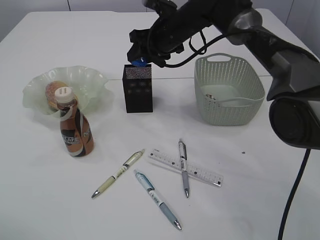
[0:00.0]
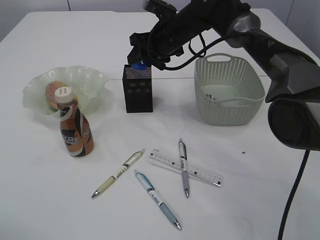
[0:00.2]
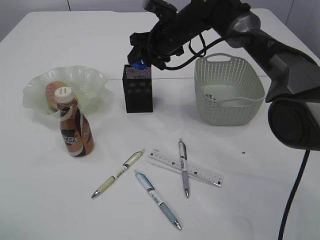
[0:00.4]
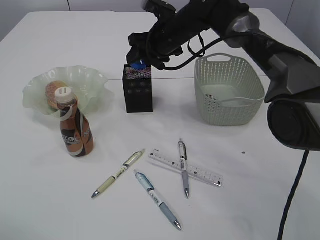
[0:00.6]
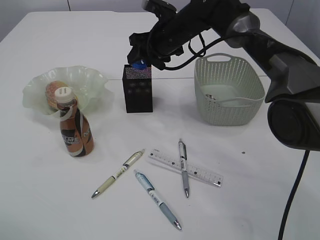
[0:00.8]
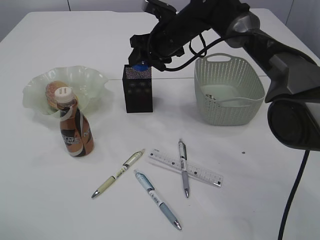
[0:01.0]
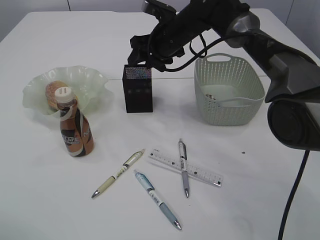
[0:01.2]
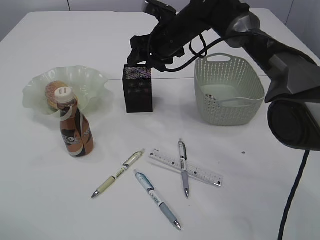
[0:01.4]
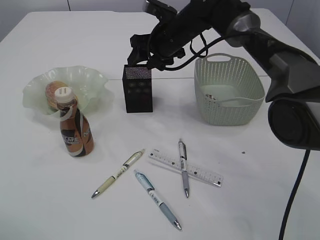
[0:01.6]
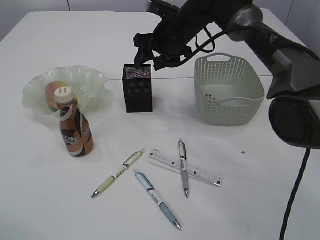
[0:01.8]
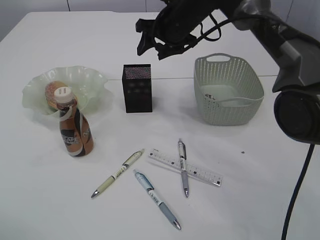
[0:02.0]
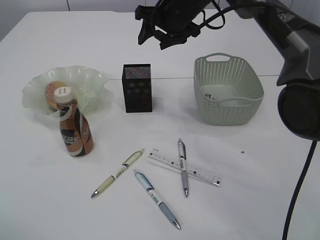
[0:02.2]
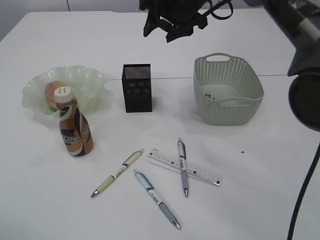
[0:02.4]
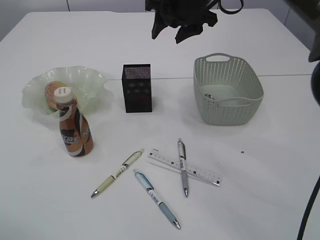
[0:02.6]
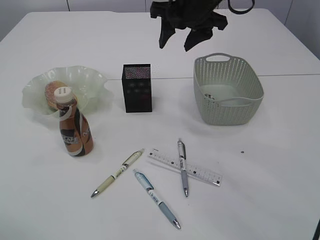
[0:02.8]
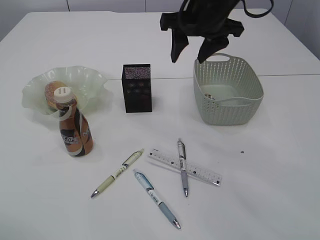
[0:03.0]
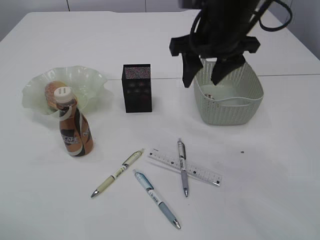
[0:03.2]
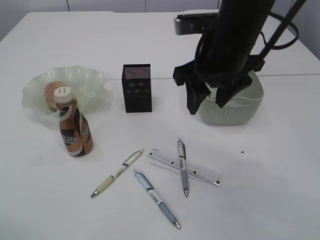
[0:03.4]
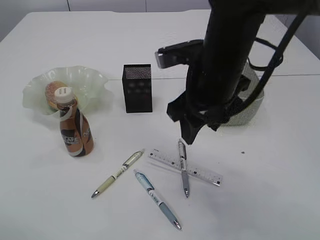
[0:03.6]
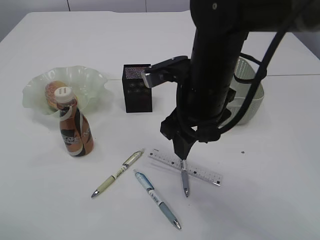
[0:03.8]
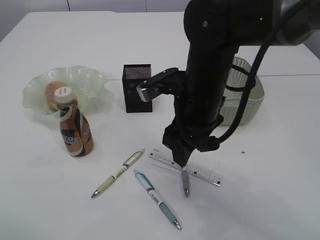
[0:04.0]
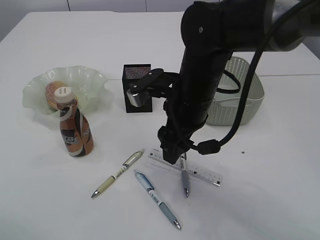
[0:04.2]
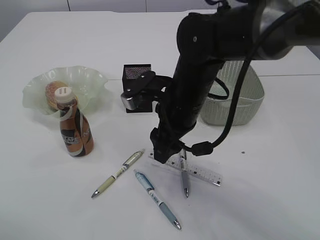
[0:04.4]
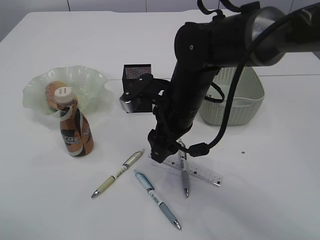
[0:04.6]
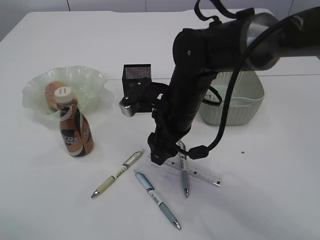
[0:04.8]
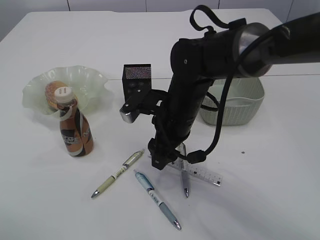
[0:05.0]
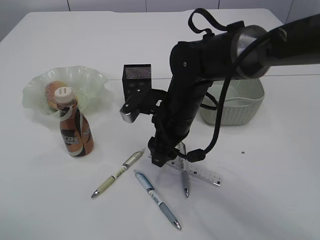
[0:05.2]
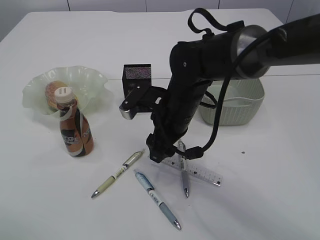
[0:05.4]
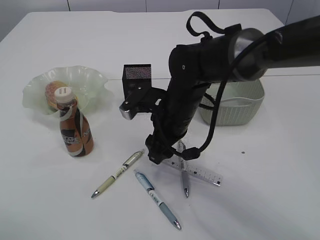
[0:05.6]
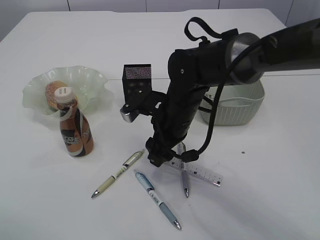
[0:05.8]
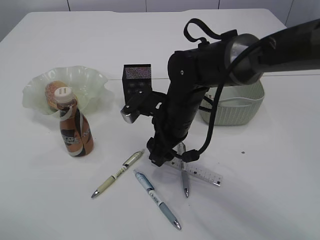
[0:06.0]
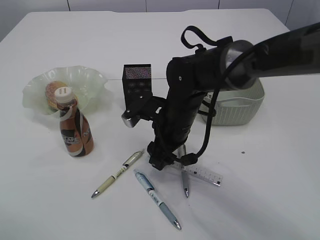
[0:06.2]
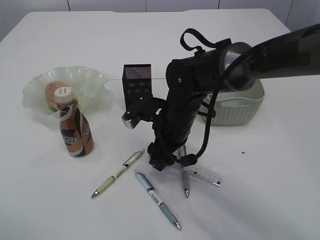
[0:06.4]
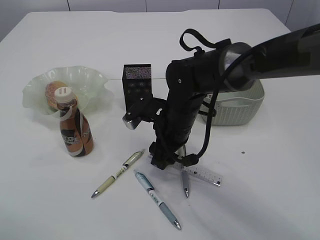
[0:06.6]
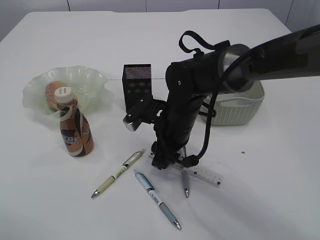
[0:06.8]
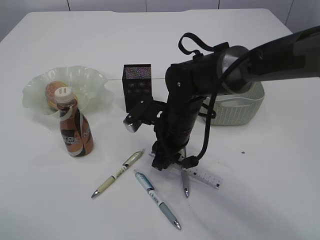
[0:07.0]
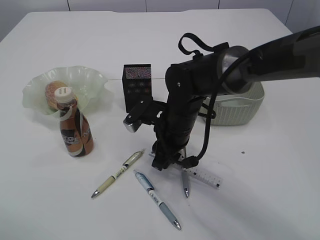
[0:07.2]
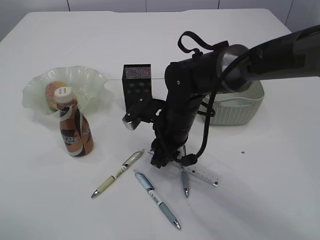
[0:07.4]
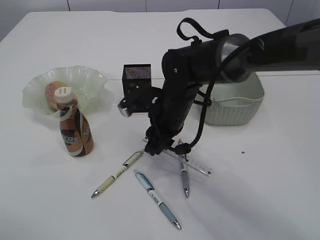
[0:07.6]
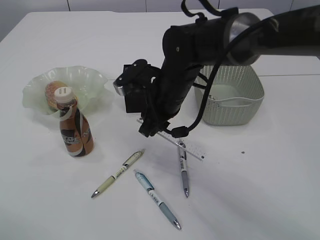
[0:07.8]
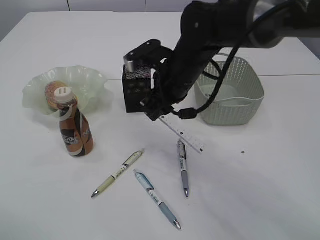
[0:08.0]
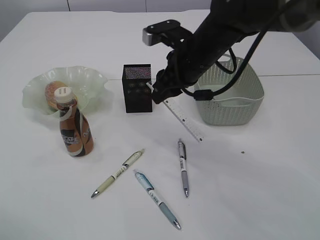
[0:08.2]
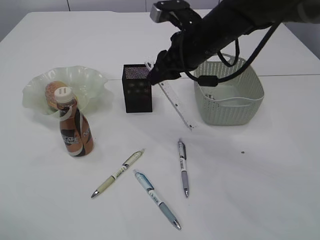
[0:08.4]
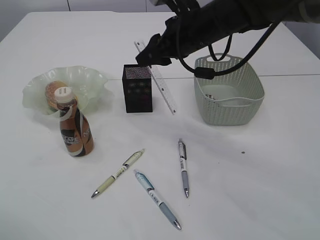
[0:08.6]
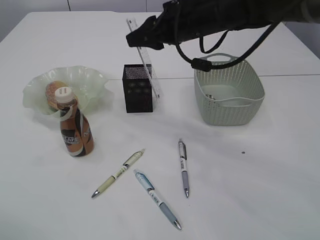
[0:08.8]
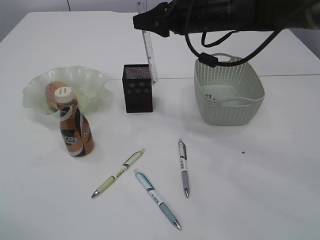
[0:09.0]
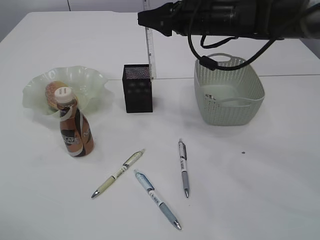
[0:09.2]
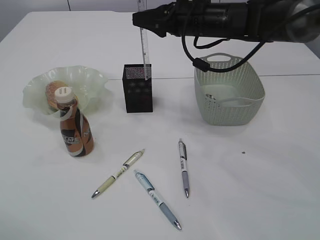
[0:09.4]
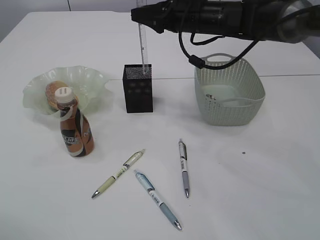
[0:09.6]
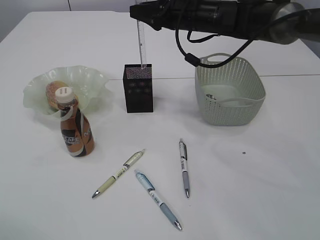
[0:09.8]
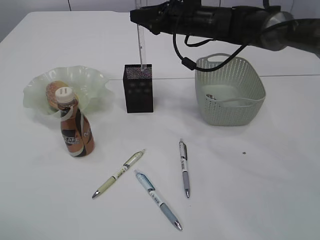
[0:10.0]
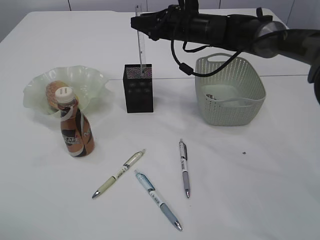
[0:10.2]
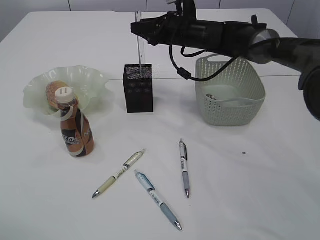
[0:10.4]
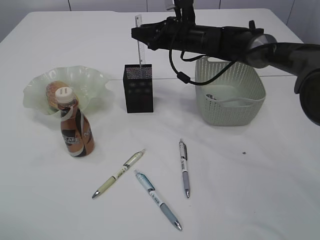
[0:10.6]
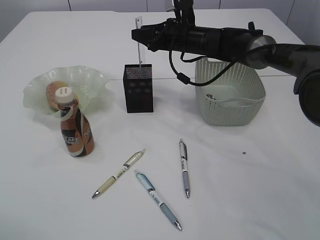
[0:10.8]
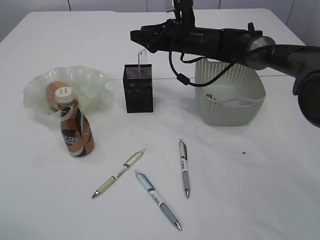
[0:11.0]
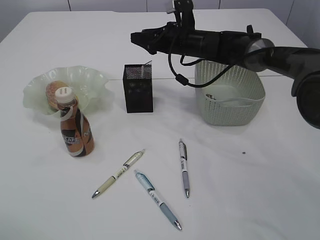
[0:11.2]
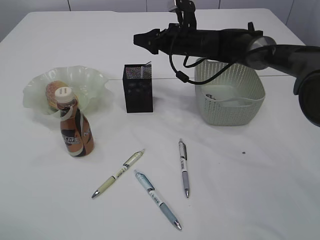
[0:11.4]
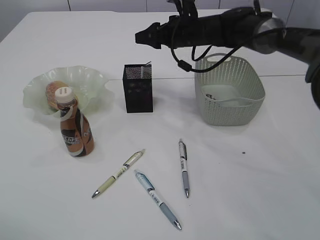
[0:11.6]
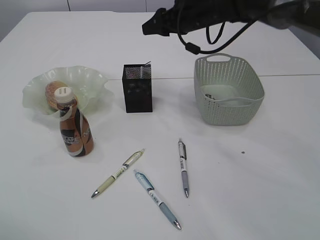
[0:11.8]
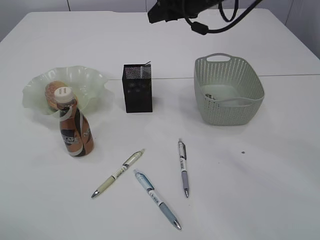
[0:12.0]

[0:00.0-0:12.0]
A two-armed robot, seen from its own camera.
Step, 0:02.0 to 0:08.2: pick up the ruler.
Step, 0:08.4 to 0:11.4: Place the ruler into the pen holder.
0:00.0 to 0:01.6: The two grippers keep their place.
0:01.6 to 0:03.0: The right gripper travels upward and backward by about 15 cm.
0:03.0 to 0:04.4: The right gripper is displaced downward, backward and to the left by roughly 15 cm.
0:04.4 to 0:06.0: The right gripper shifts approximately 5 cm downward.
0:06.0 to 0:07.6: The right gripper closes.
0:07.6 to 0:09.0: The right gripper is displaced upward, to the right and forward by roughly 15 cm.
0:09.0 to 0:10.4: The right gripper shifts some 10 cm forward and downward.
0:10.4 to 0:12.0: The right gripper goes roughly 10 cm upward.

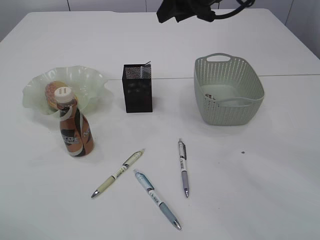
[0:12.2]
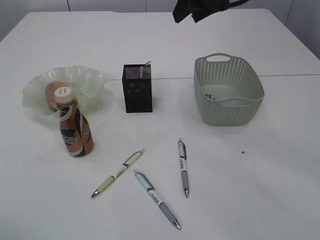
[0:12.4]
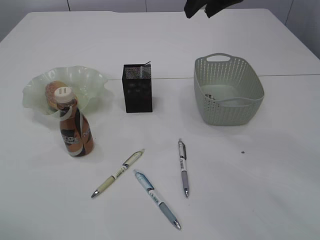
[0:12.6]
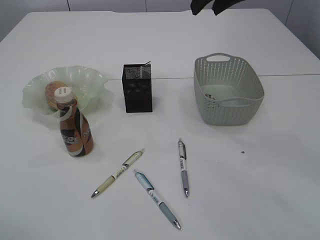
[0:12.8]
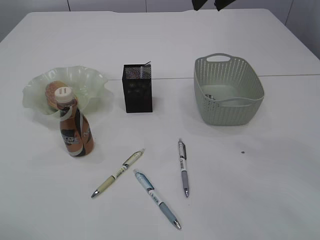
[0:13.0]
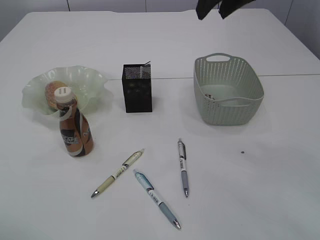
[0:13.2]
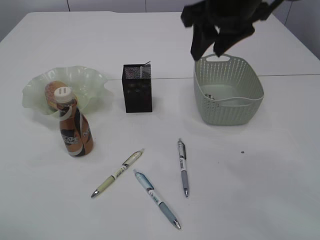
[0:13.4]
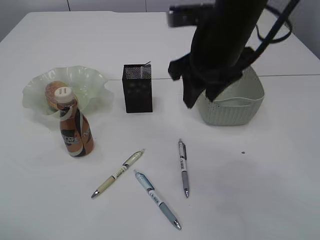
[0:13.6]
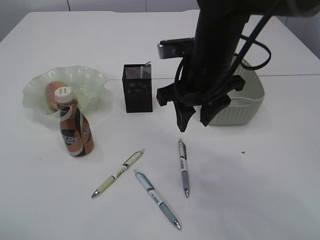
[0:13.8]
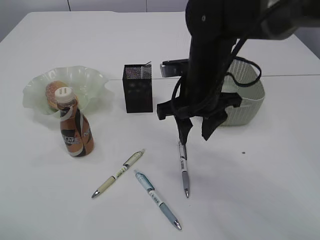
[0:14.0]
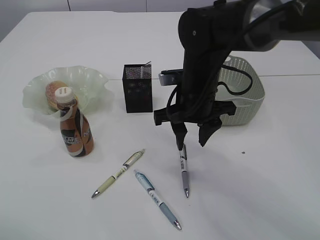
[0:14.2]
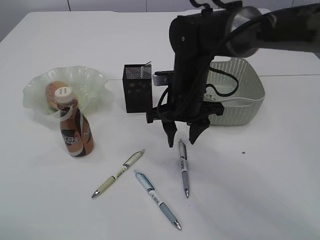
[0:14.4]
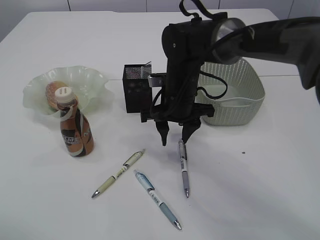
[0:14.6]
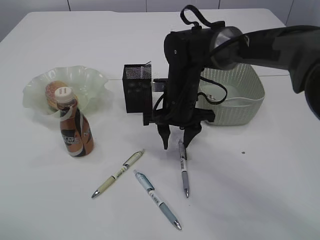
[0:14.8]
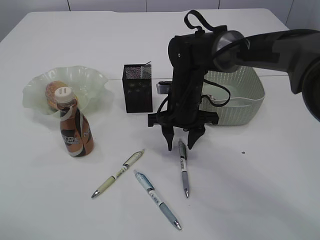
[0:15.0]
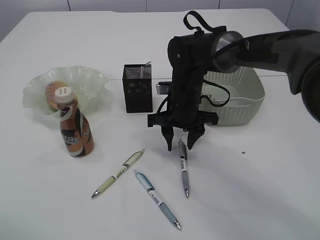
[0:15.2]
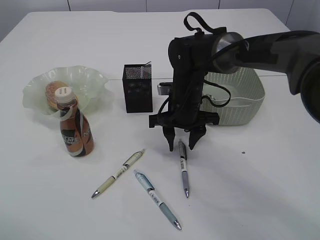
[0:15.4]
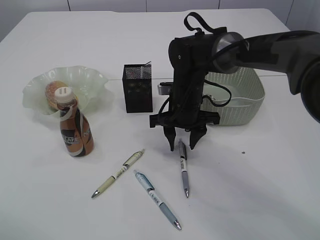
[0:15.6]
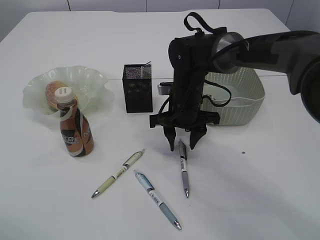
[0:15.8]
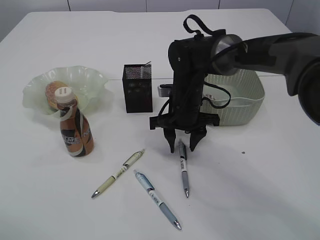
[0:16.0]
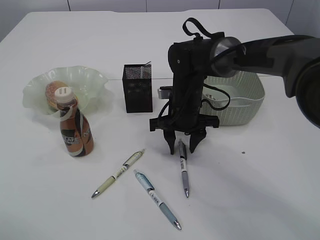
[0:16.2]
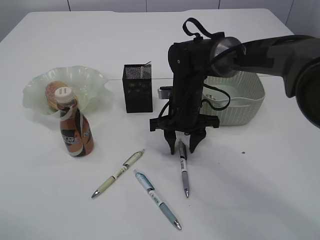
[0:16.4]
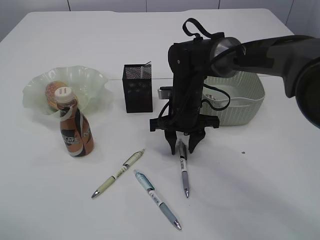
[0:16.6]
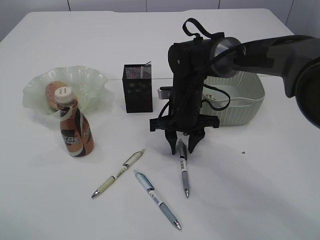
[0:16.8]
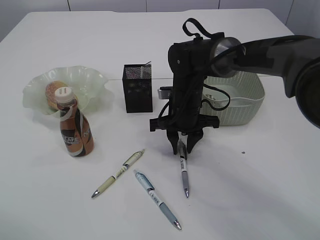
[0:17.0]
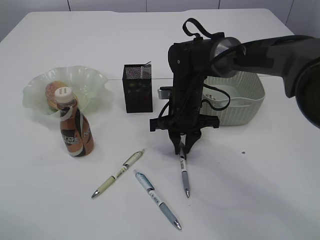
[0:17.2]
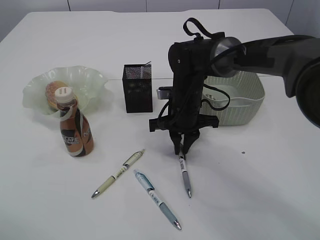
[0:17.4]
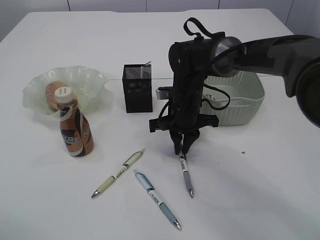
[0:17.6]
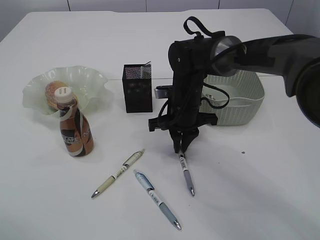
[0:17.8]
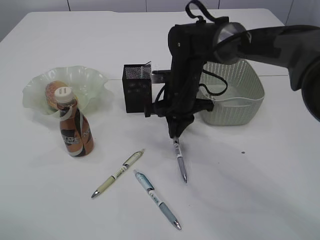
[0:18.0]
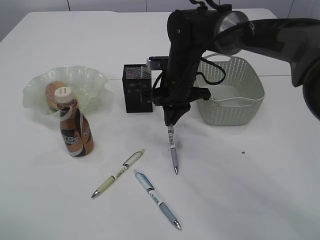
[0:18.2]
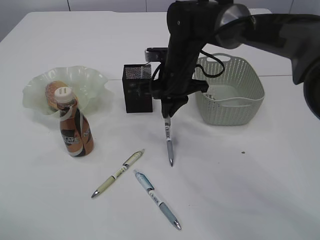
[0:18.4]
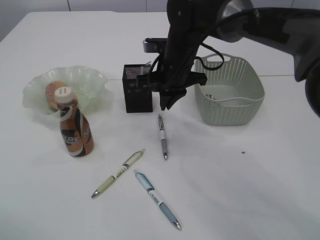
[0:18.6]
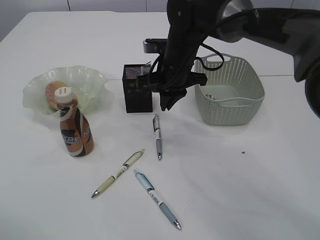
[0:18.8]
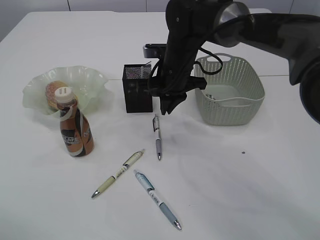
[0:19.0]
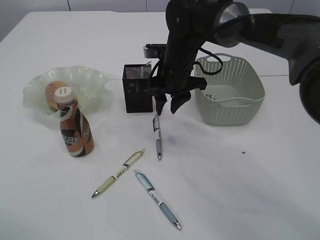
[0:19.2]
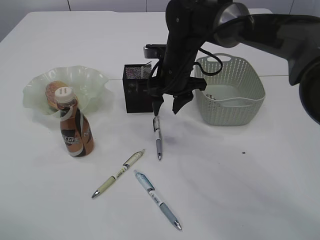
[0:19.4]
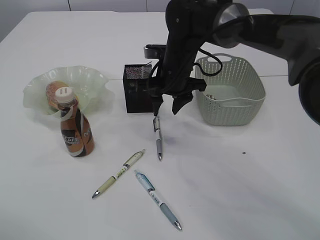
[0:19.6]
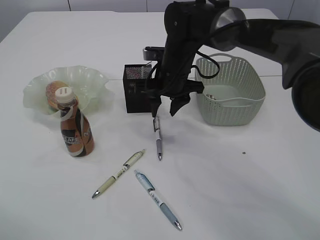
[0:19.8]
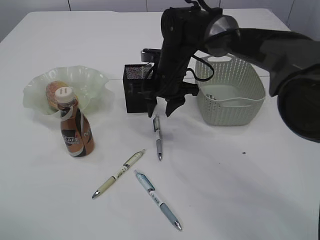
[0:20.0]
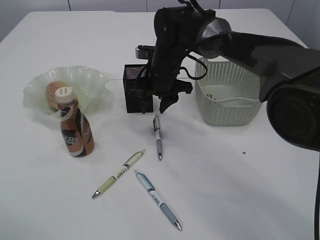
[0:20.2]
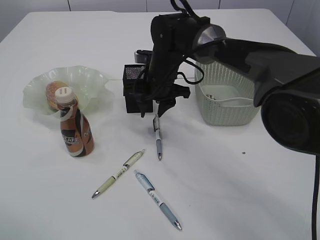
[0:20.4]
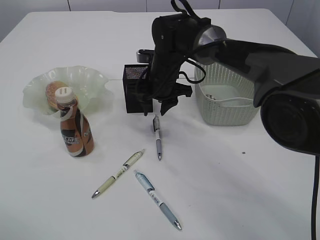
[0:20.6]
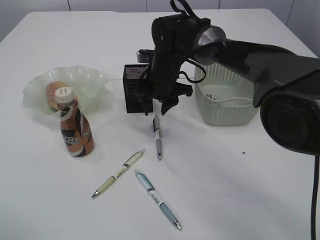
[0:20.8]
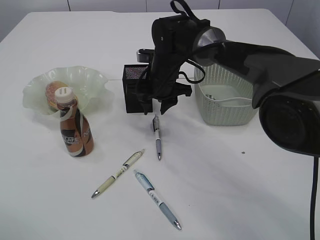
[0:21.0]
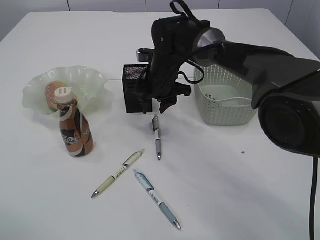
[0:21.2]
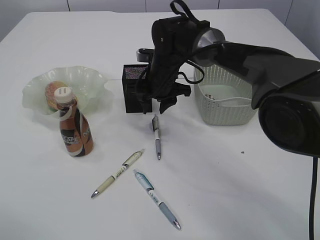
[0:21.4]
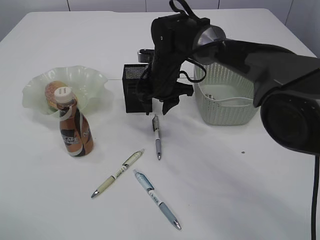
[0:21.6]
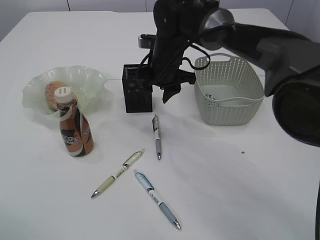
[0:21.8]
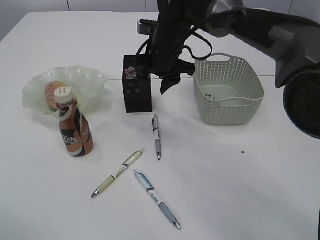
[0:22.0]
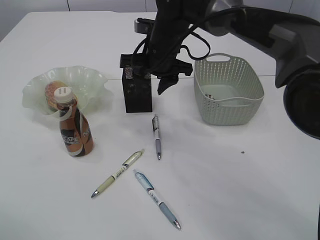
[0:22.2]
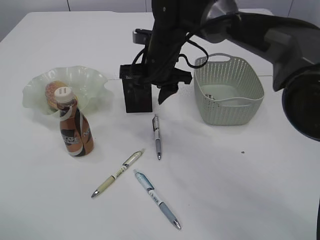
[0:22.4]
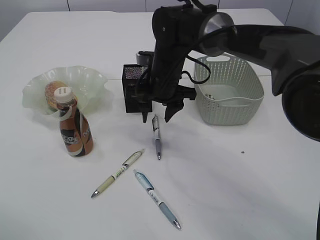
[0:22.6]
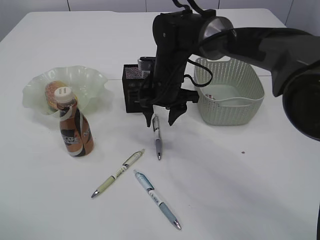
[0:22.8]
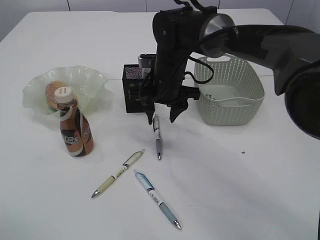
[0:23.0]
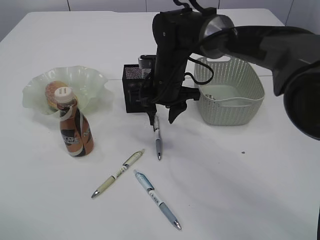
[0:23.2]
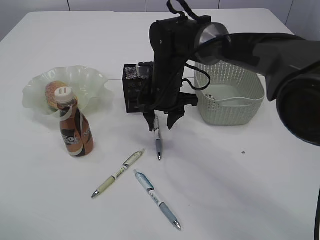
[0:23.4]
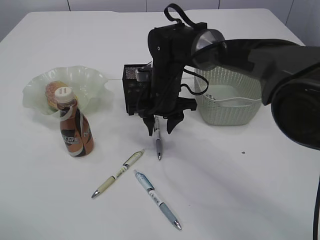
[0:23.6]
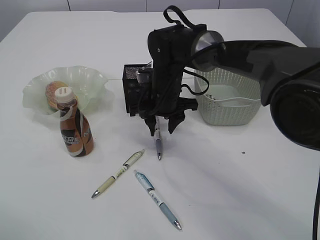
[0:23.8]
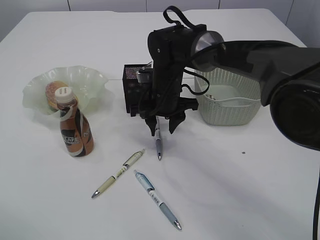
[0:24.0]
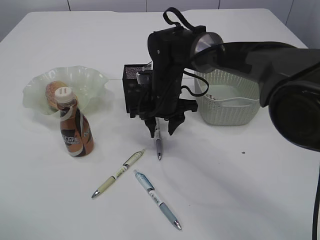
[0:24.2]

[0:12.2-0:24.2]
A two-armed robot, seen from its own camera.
0:12.2 to 0:13.8: The right gripper moves backward and downward, approximately 15 cm.
0:13.8 to 0:15.2: The right gripper heads downward and forward, covering approximately 15 cm.
0:15.2 to 0:16.6: Both grippers stay put.
0:16.6 to 0:18.2: The right gripper is displaced upward by some 5 cm, and closes up.
0:18.2 to 0:19.8: The right gripper opens.
0:19.8 to 0:21.2: The grippers stay close to where they were, moving slightly.
0:22.6 to 0:24.2: There are only small adjustments of the grippers.
